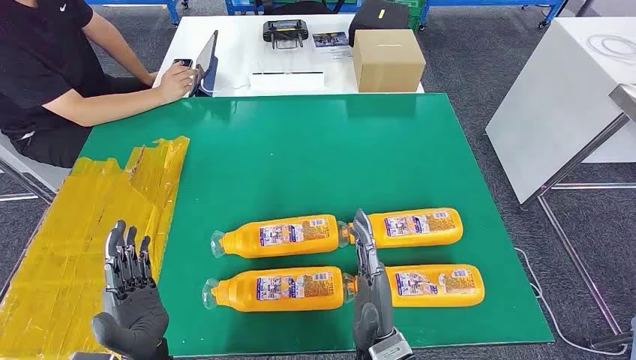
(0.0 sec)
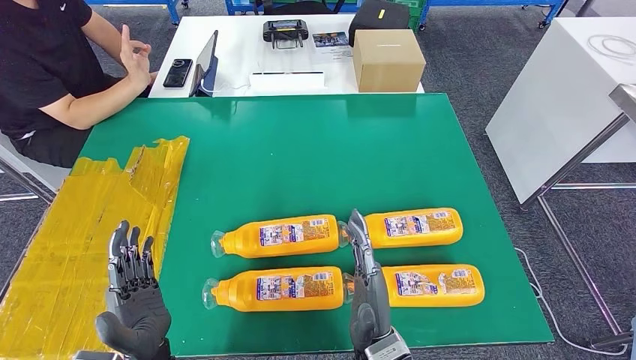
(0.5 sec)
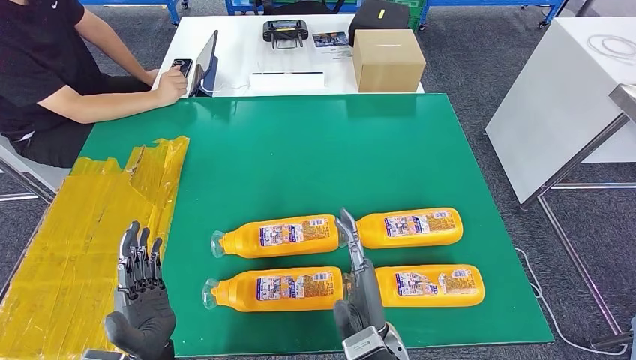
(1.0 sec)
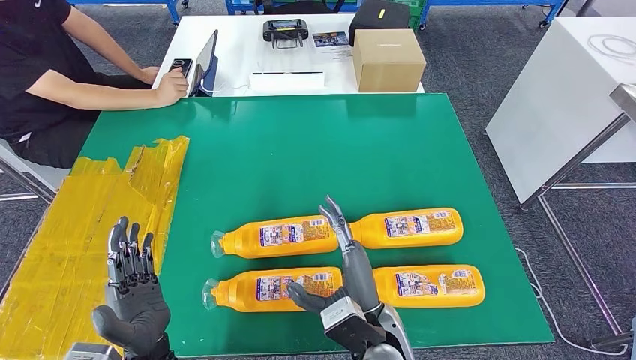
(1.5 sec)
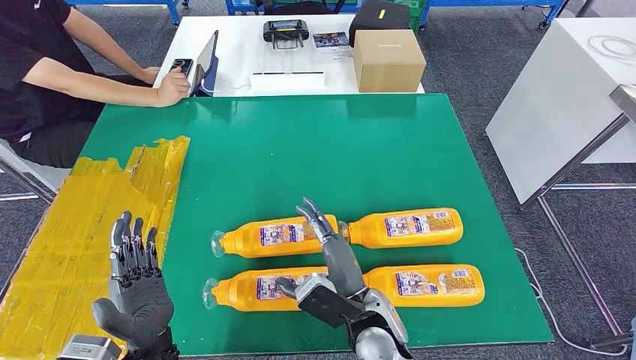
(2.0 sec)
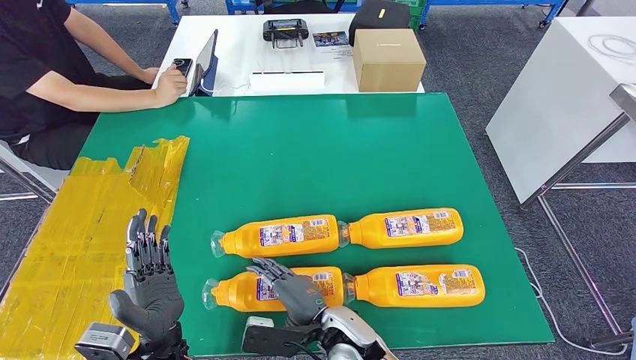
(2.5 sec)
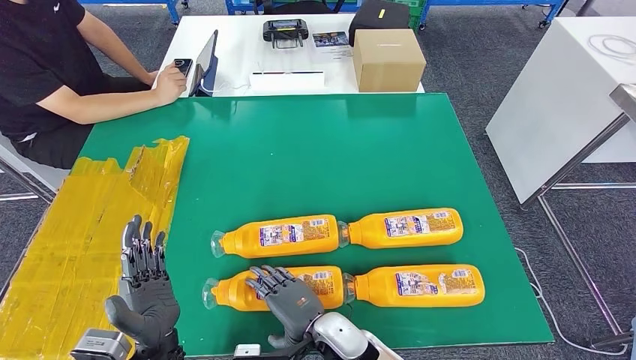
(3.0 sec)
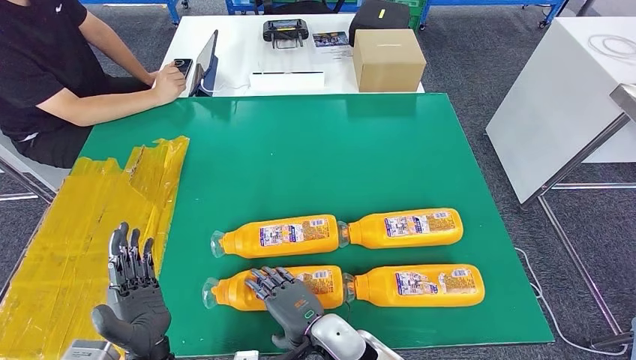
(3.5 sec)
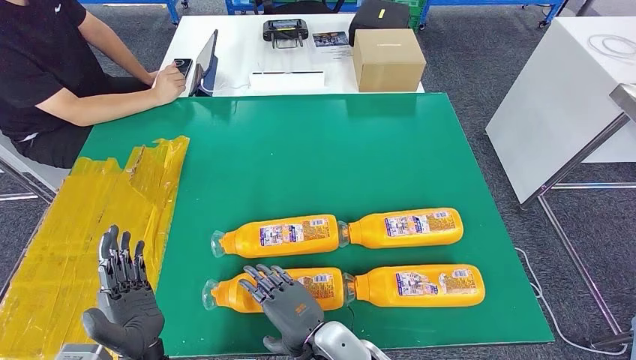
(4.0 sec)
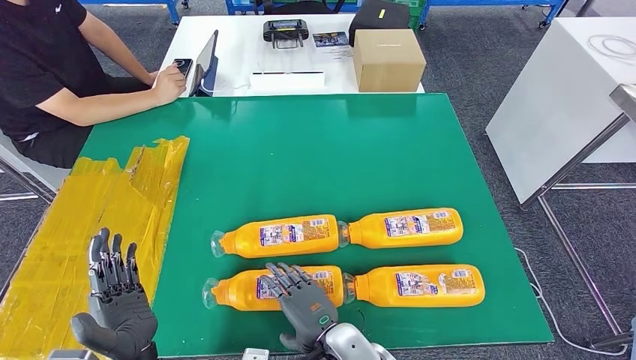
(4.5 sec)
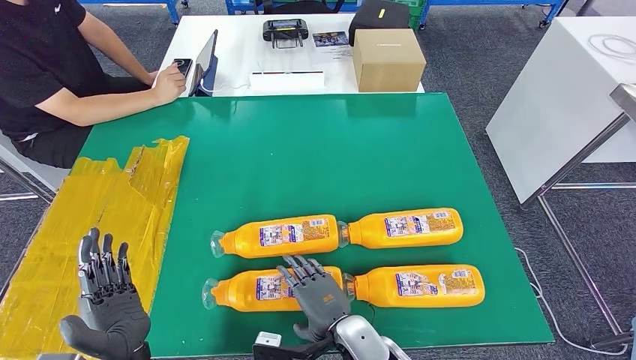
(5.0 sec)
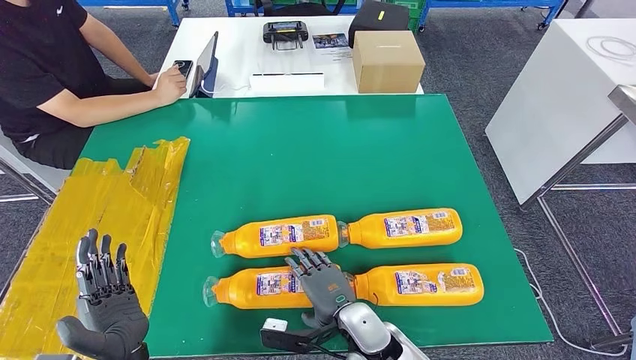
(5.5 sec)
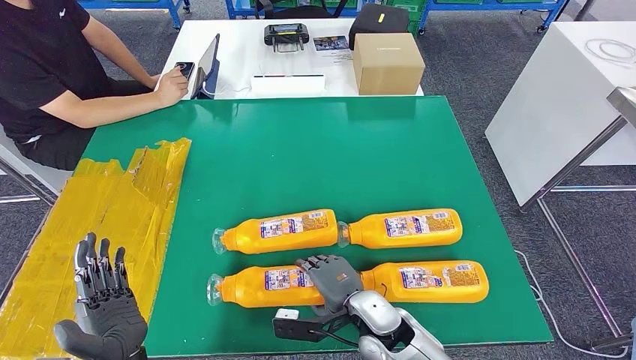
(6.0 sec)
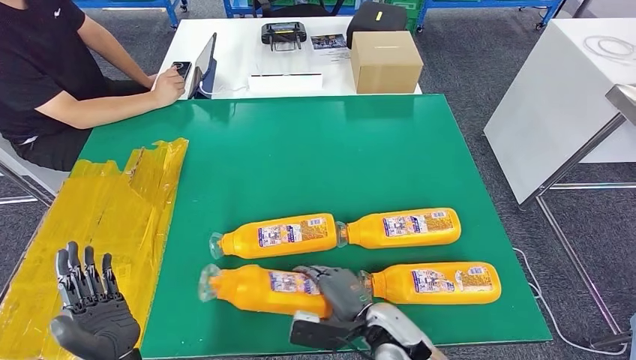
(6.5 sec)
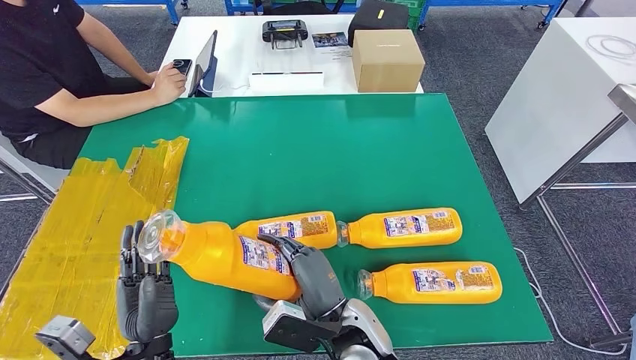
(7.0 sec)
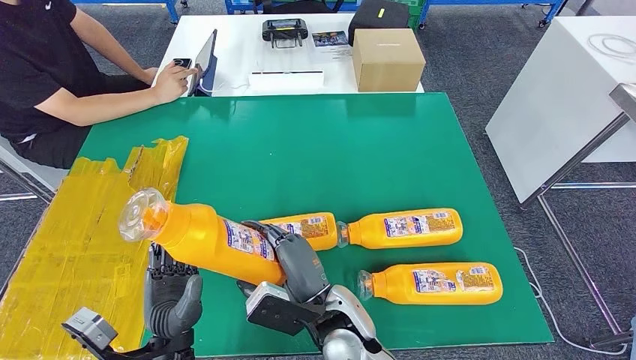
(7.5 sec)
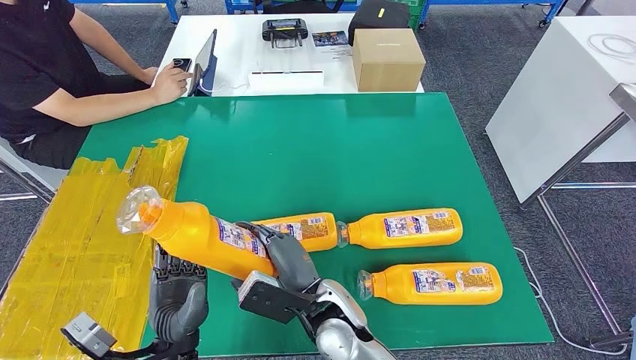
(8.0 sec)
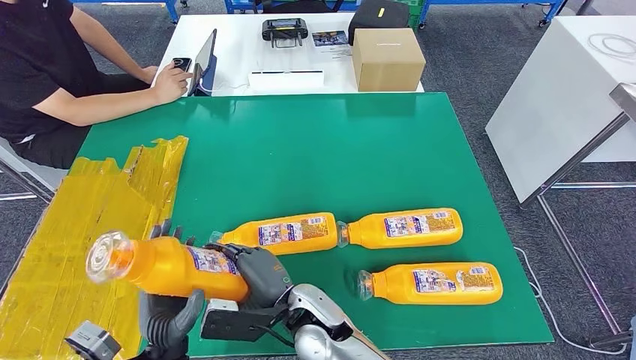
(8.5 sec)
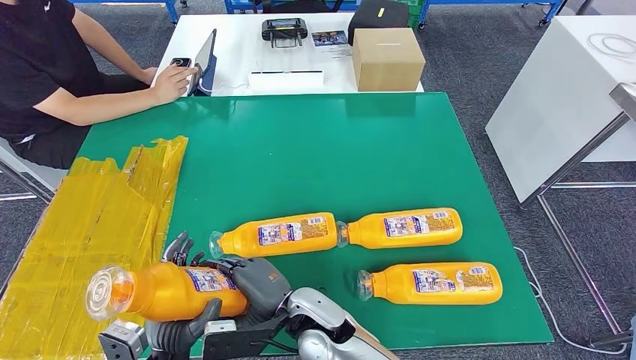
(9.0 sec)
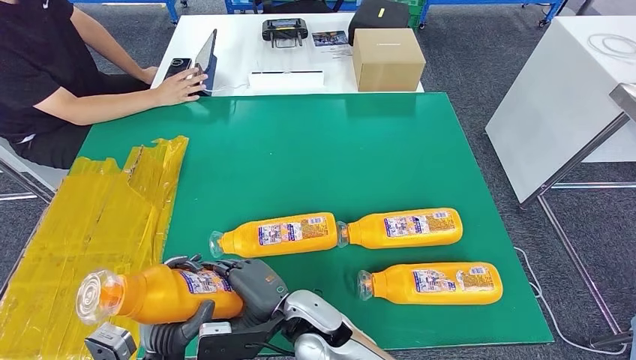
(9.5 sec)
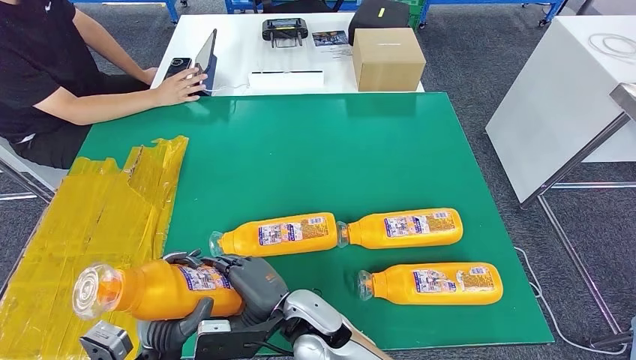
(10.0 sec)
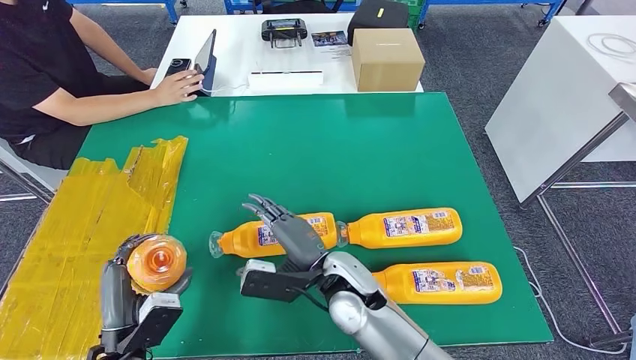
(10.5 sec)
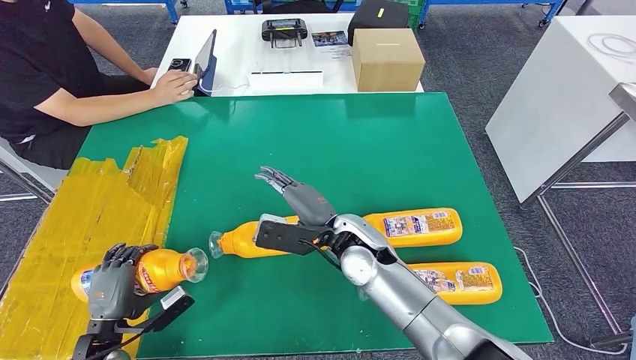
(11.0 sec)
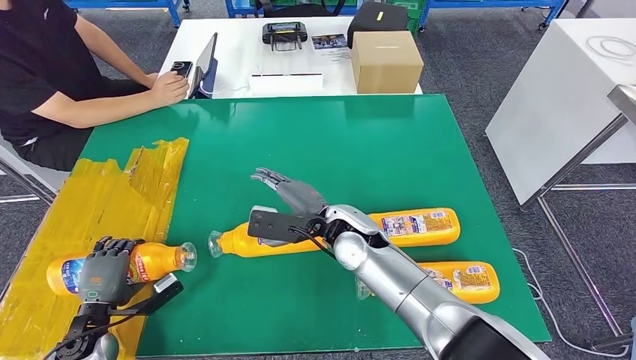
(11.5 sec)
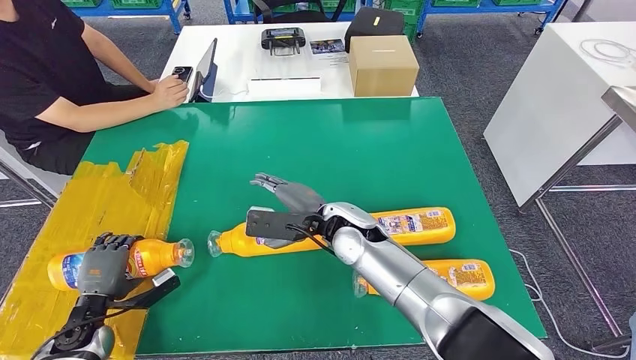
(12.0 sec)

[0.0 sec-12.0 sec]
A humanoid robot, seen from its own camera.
Step, 0.0 sec to 8.5 sec: Take the bottle from the table.
2.0 sec to 4.0 sec: The right hand goes roughly 5 cm to the left.

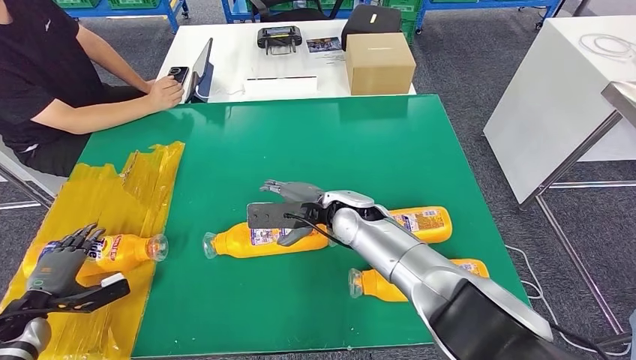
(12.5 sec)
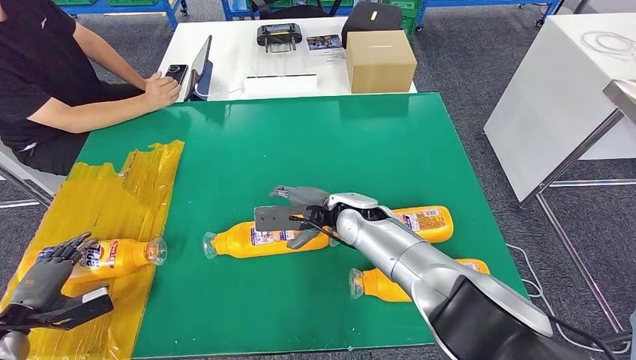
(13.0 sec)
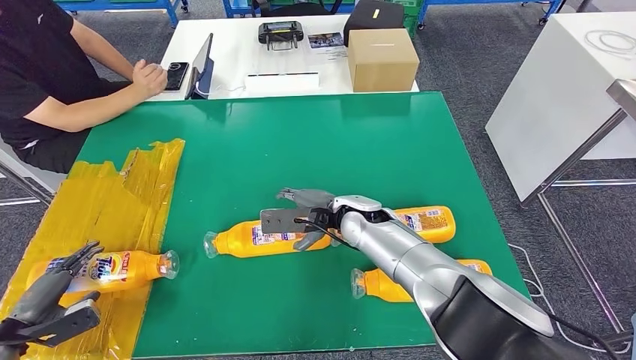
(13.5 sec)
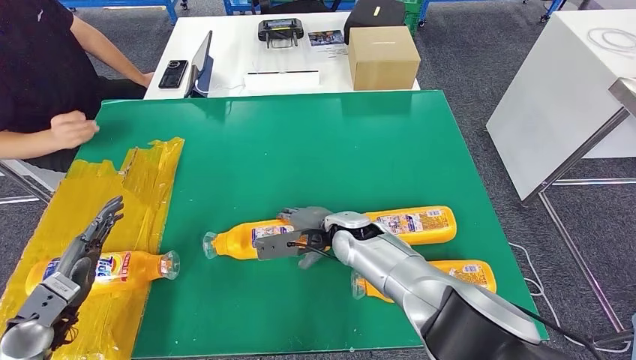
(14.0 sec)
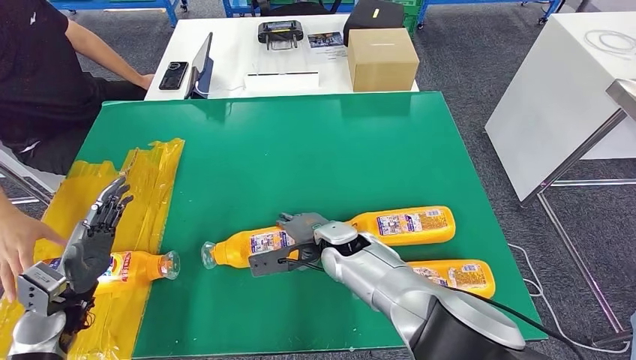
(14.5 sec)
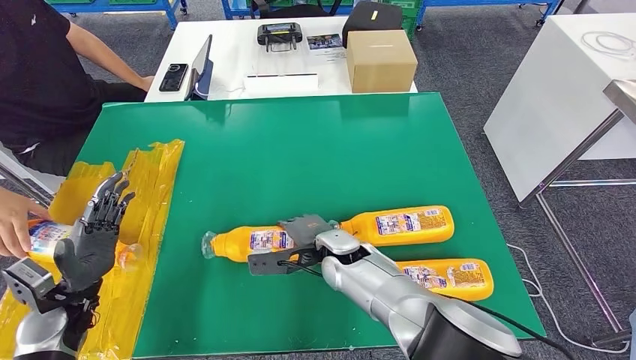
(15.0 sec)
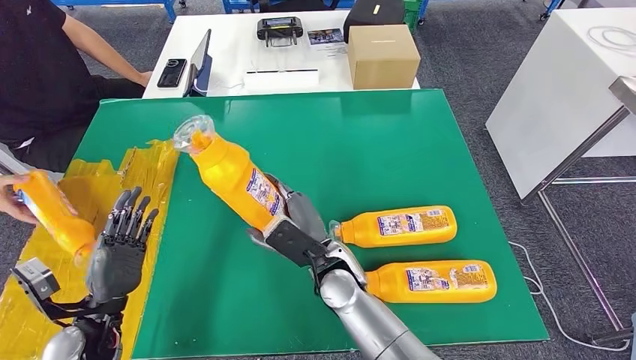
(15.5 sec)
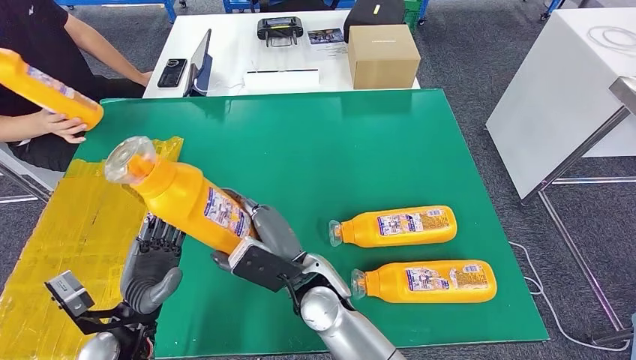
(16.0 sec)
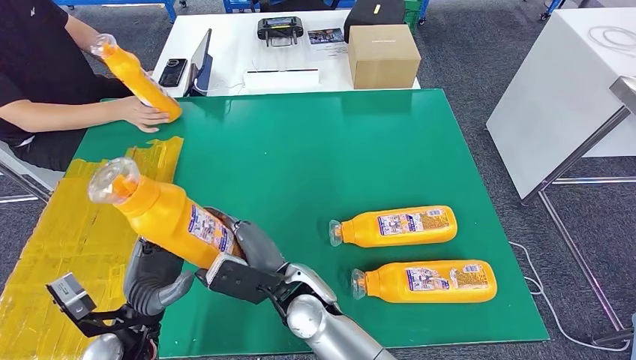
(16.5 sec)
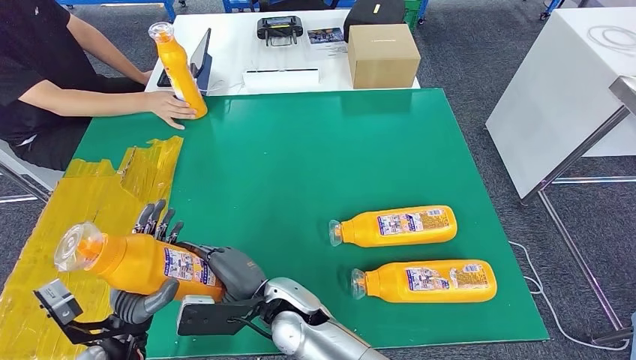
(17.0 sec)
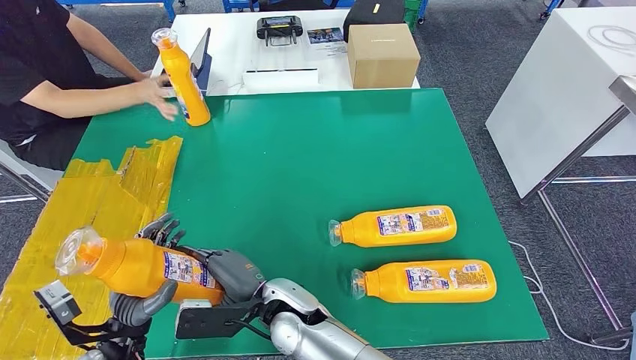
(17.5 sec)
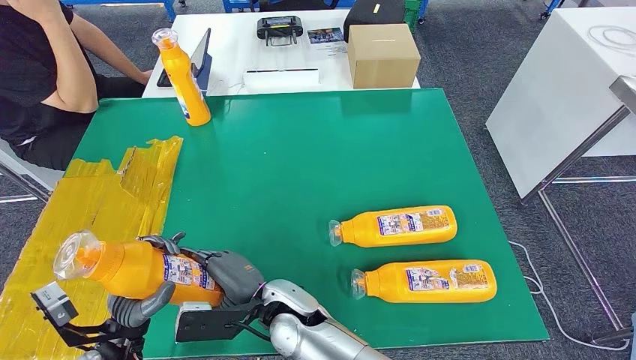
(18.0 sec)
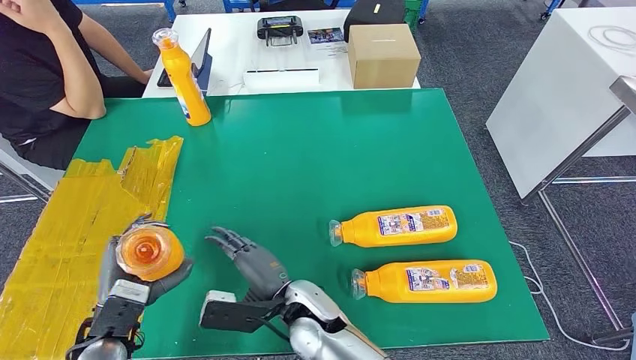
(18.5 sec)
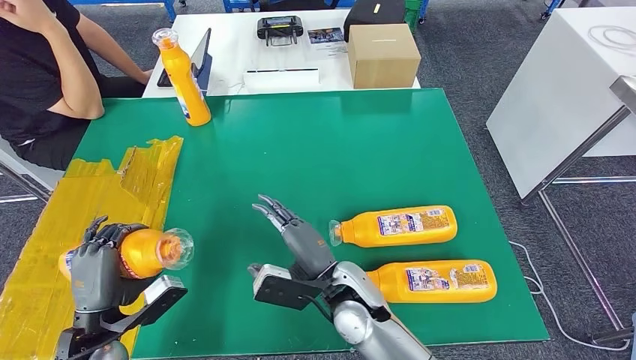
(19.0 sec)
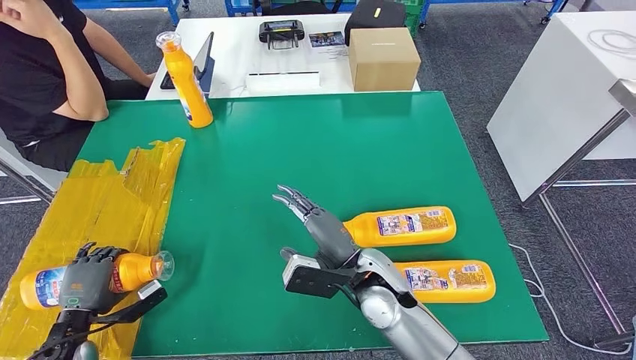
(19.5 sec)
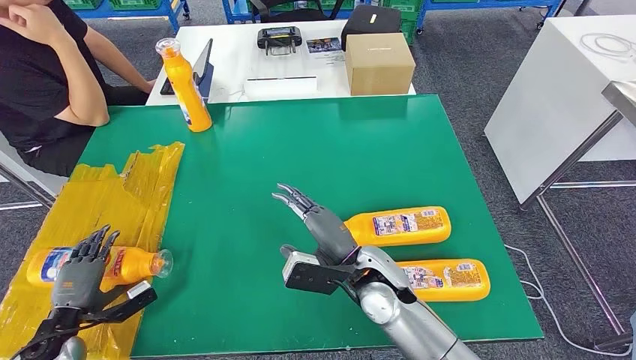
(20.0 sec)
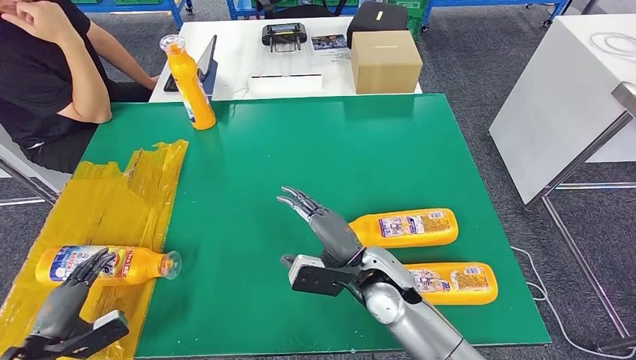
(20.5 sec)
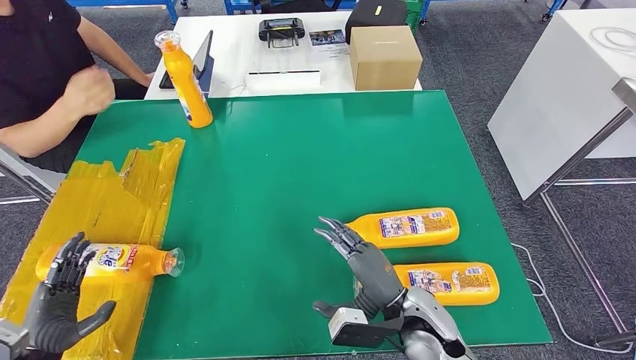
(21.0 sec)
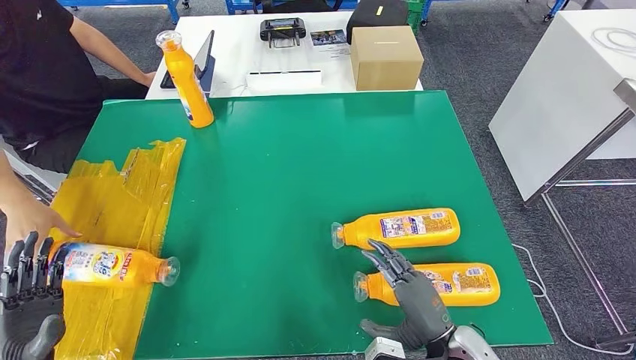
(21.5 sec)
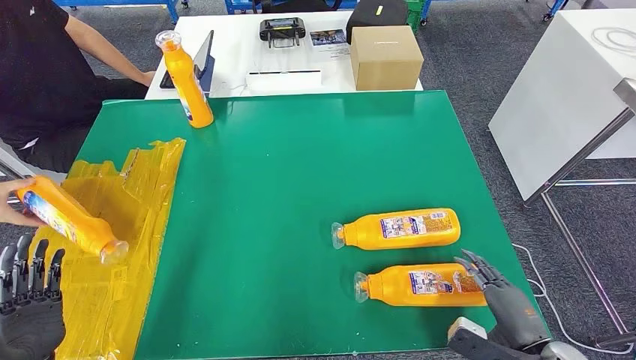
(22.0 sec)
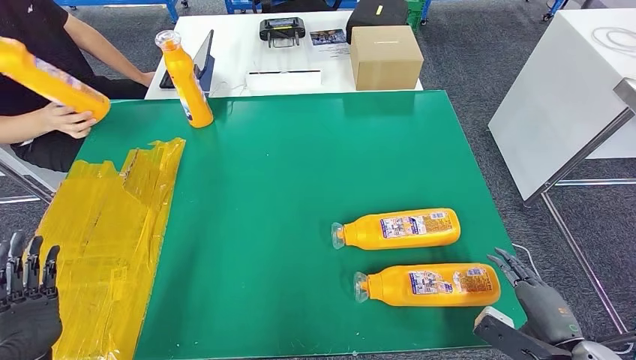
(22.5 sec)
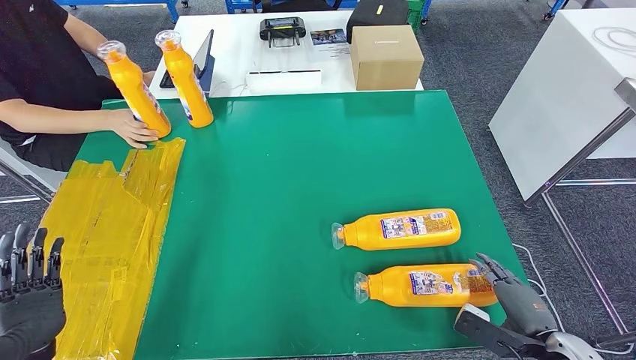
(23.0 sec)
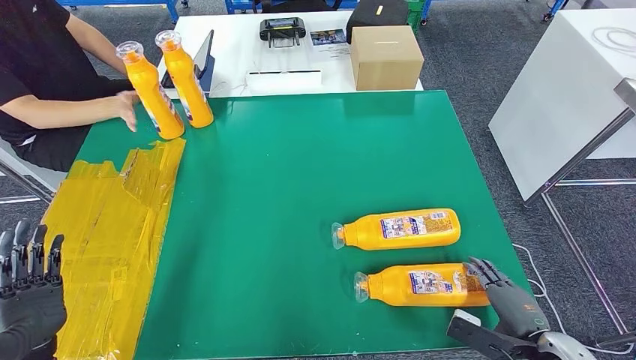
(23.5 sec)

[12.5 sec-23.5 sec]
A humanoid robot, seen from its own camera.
Step, 12.5 sec to 16.5 sec: Pick up the bottle from the table.
Step, 17.5 sec to 20.5 sec: Flip the bottle to face forward.
21.5 sec to 23.5 sec: The right hand goes some 15 cm to the right.
